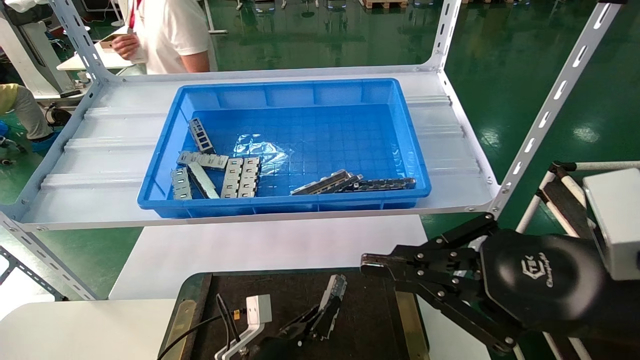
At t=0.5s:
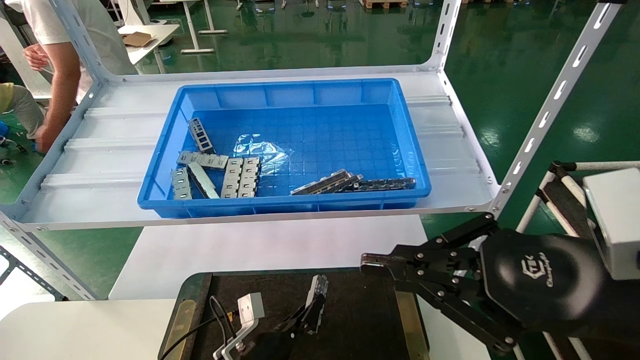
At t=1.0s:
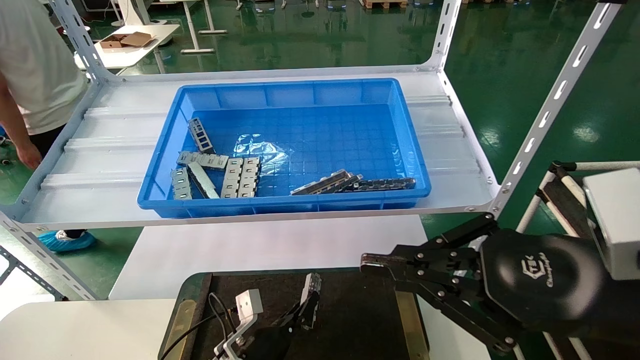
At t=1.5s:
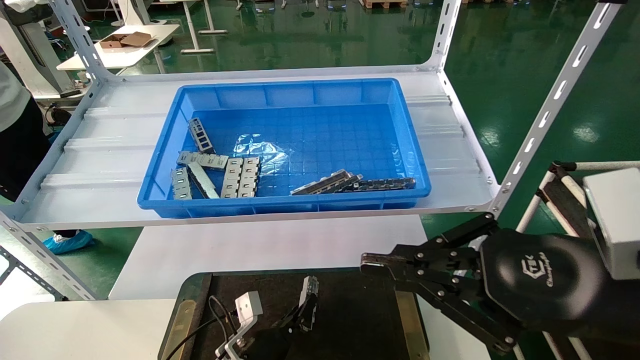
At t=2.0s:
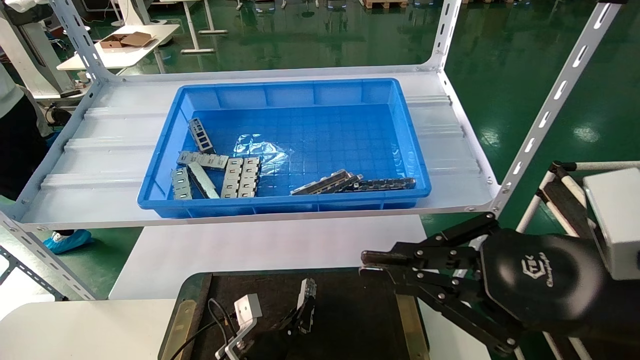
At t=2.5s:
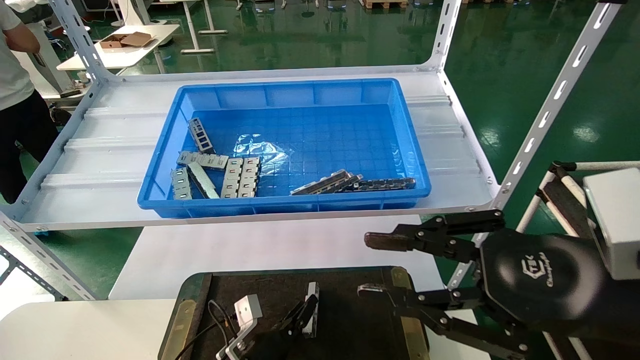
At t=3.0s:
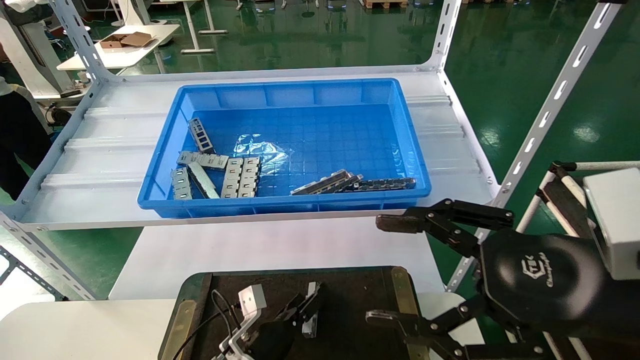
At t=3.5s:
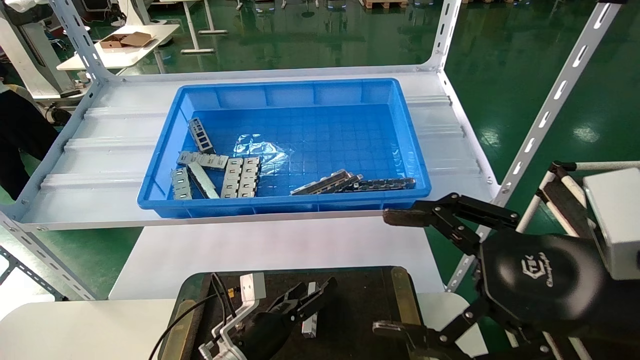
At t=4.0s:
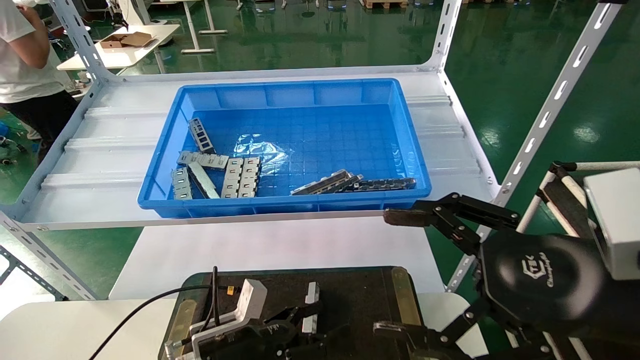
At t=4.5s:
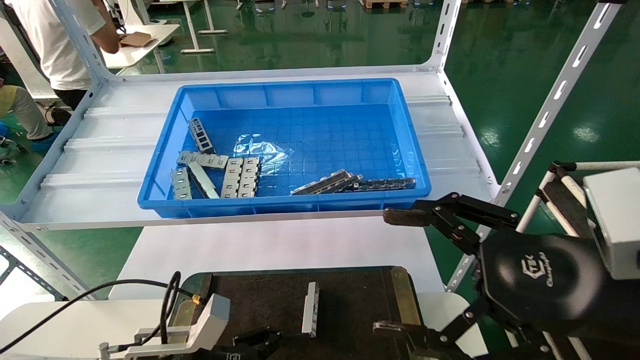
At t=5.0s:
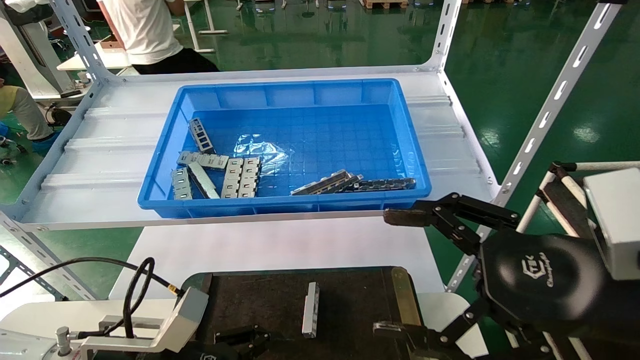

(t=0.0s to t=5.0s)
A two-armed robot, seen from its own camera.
Task of the whole recording: Grasp the part with one hand and place it on the black container.
Step, t=0.0s - t=2.5s: Place the front USB bracket into the box.
t=0.0s - t=2.5s: There are only small adjustments of the grippers.
t=2.5s - t=5.0s: The left gripper moves upward, backward and to the left, some 25 cm, and opens its fingers, while the right gripper opens up.
